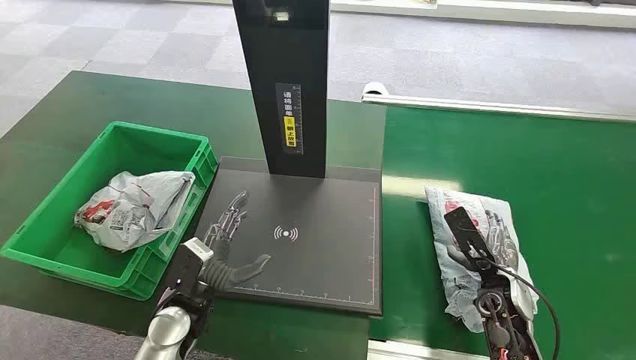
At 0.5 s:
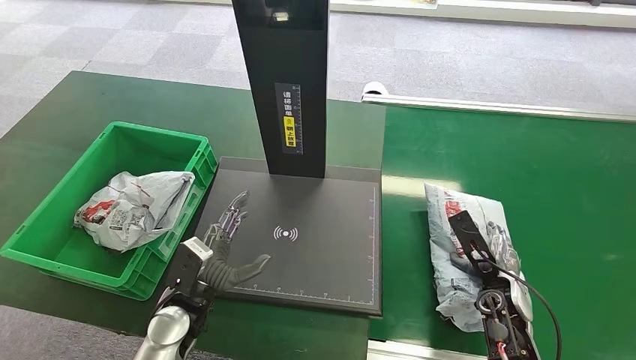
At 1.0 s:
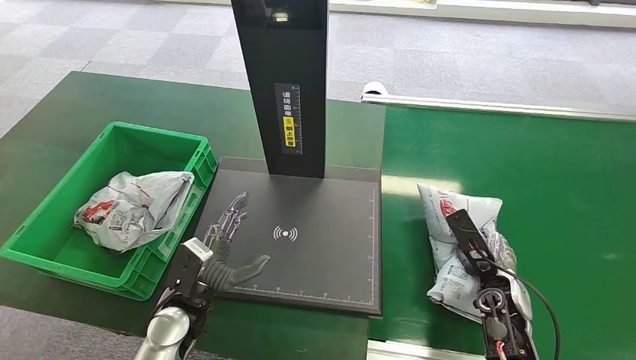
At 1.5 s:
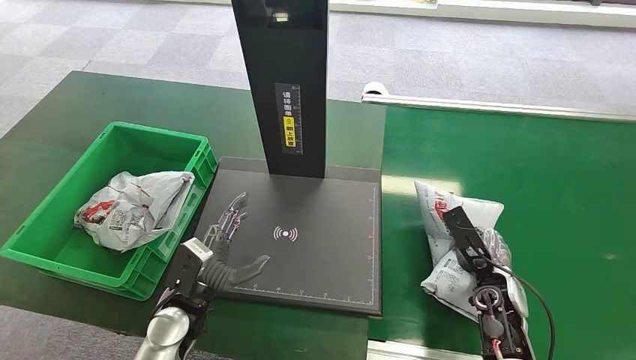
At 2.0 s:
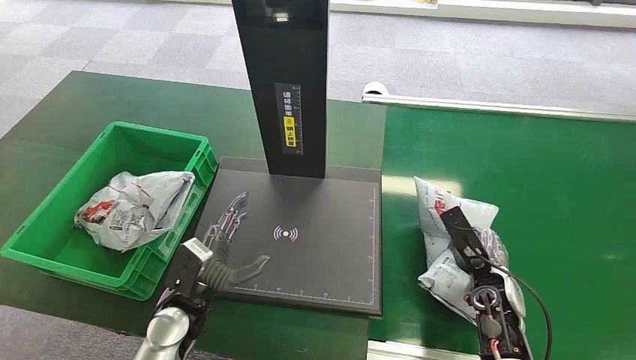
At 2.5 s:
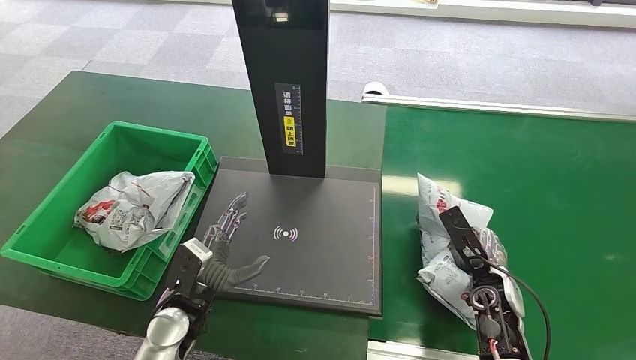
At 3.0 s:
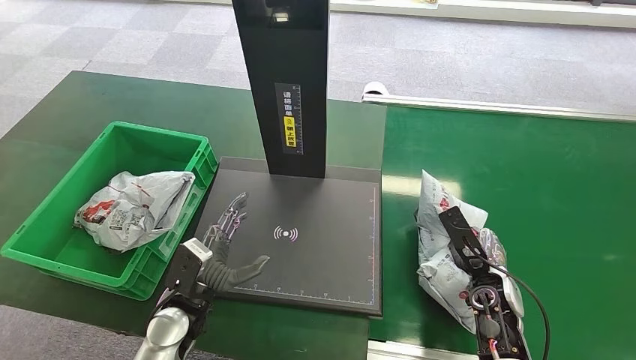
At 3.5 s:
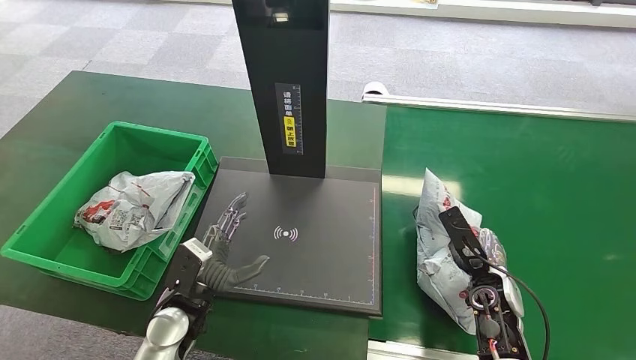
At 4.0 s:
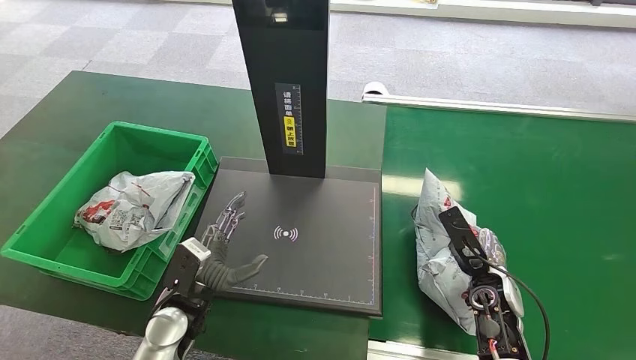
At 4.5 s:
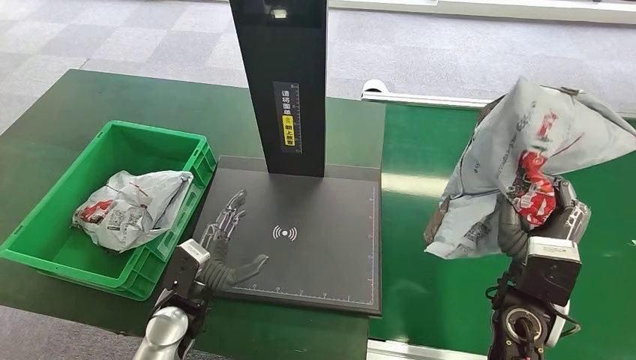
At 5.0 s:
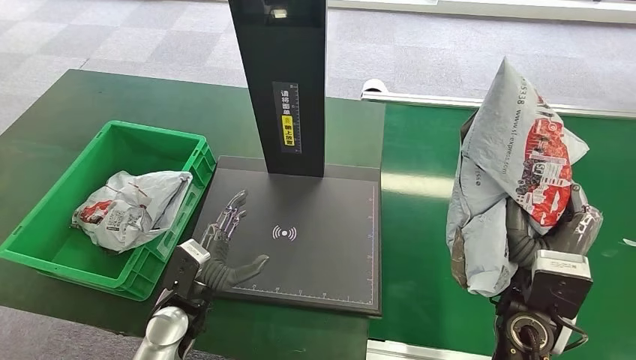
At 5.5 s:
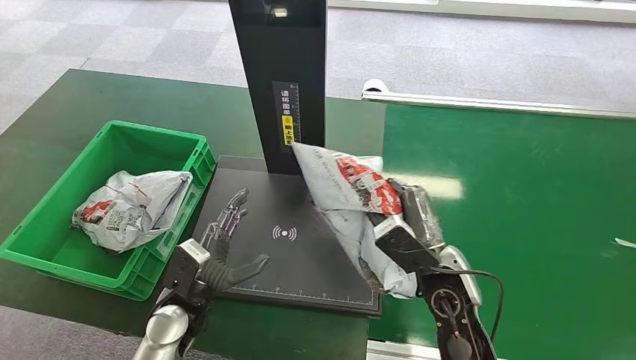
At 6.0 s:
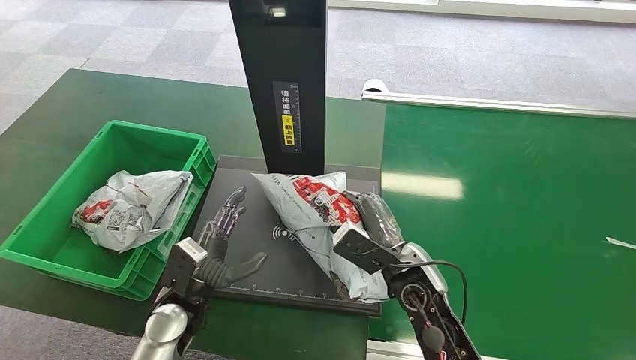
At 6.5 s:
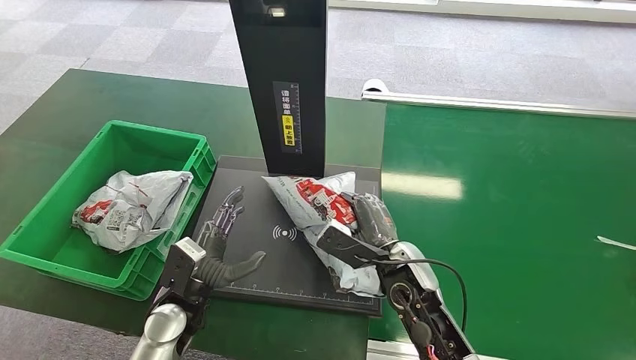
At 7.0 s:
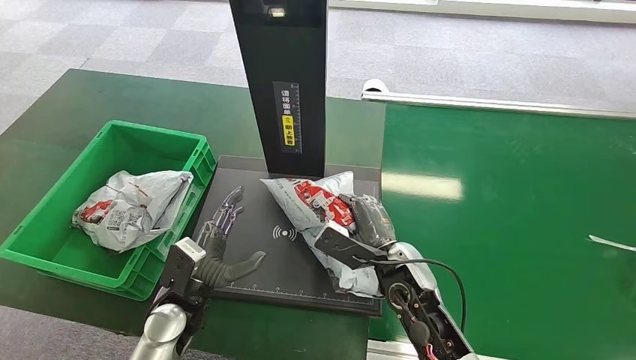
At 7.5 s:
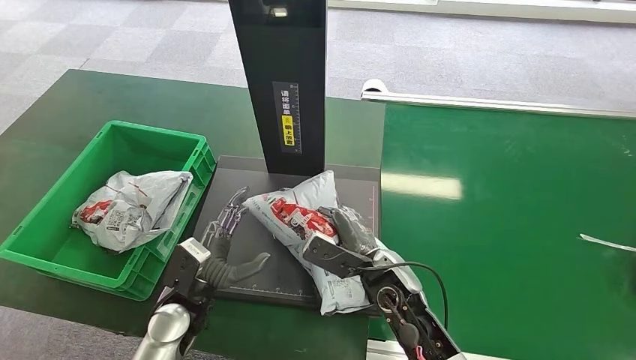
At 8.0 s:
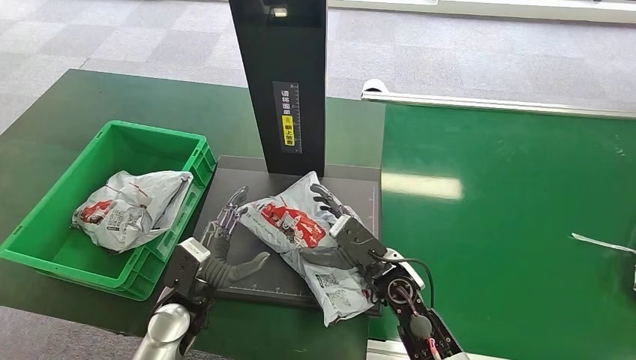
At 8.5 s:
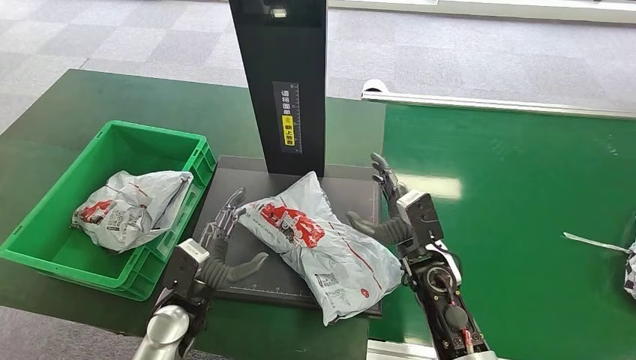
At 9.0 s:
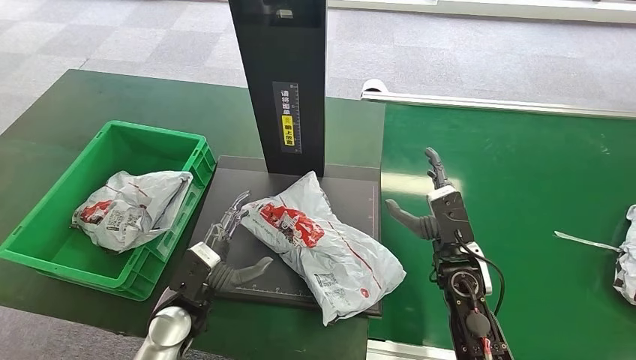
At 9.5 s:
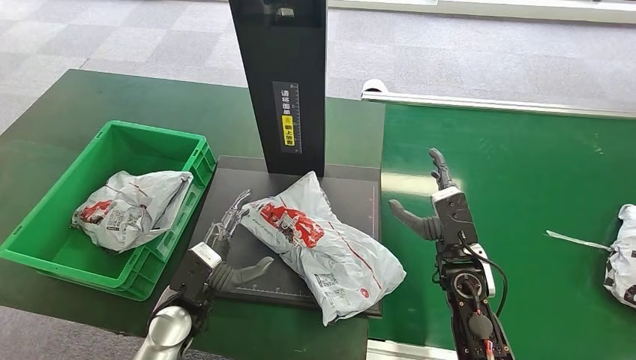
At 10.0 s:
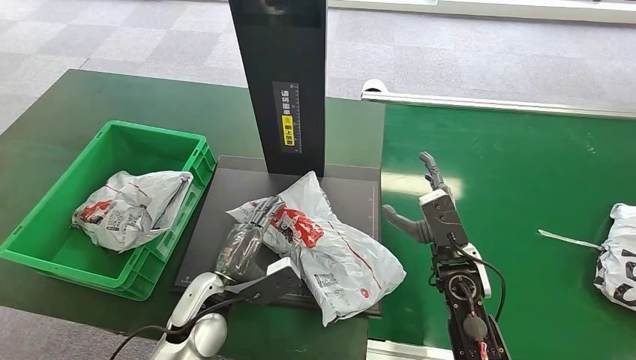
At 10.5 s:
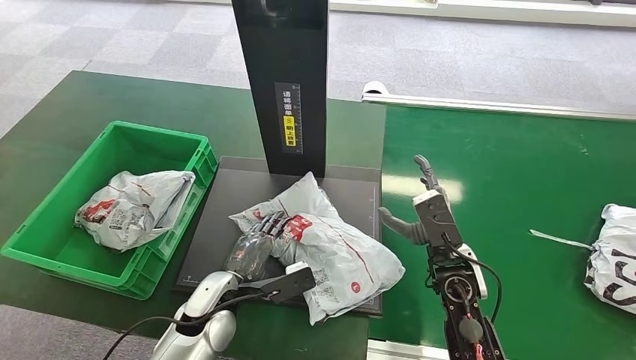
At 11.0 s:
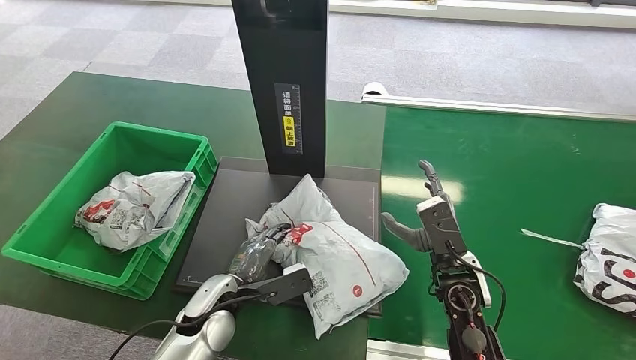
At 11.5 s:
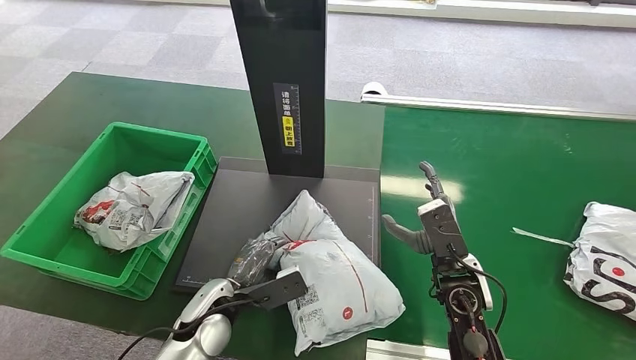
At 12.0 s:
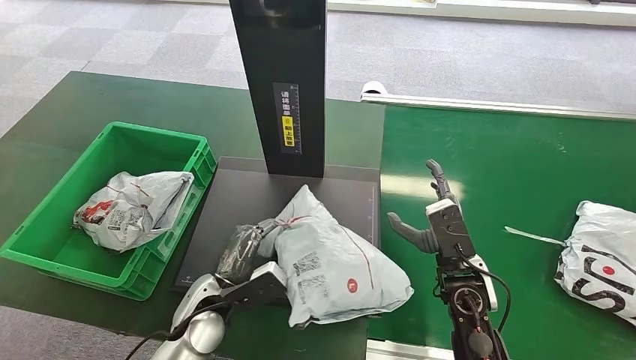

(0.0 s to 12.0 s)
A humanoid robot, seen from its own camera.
Task of the whole recording: Weigh the package on the weighing device and place it in the left basket.
Step, 0.0 s - 5.0 s: Pick up the package from the conveyor belt.
Step, 5.5 s - 8.0 s: Place the package onto the inbound machine.
2.0 s - 4.0 s: The two hands keep their place.
8.0 s - 10.0 s: The right hand goes roughly 10 cm to the right.

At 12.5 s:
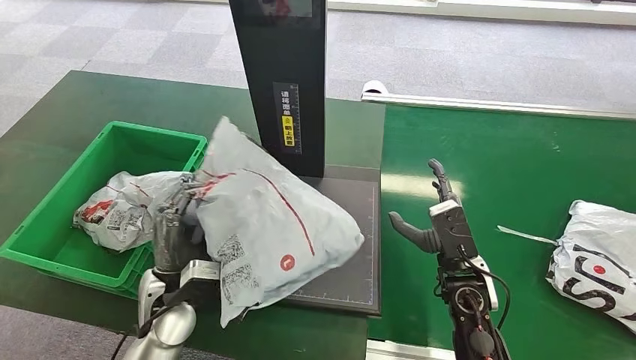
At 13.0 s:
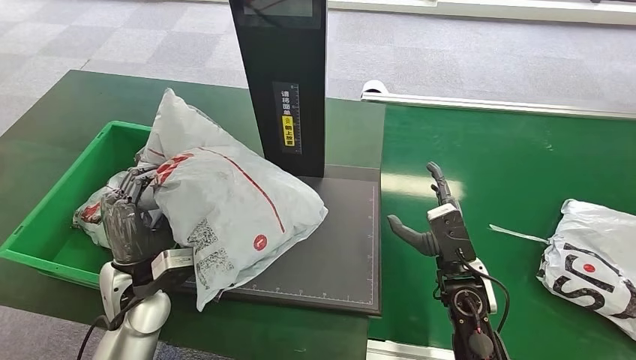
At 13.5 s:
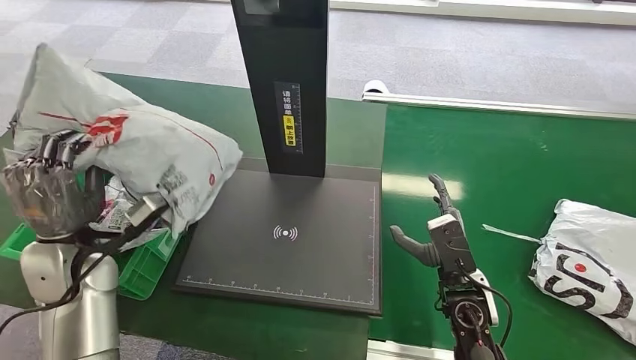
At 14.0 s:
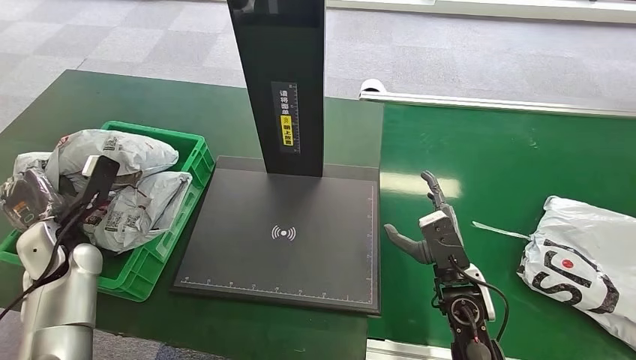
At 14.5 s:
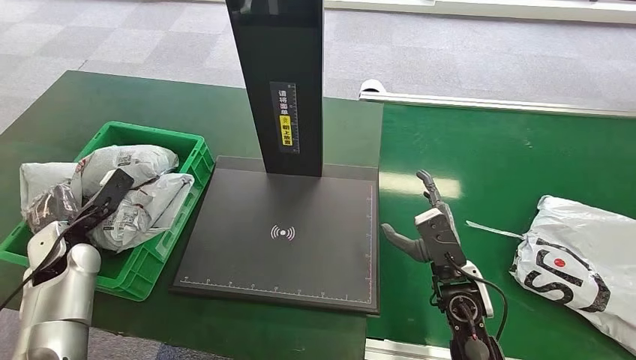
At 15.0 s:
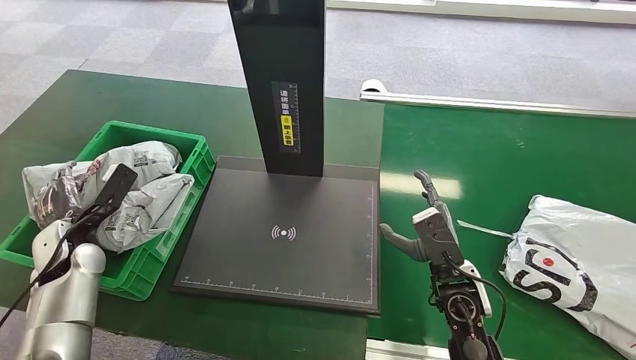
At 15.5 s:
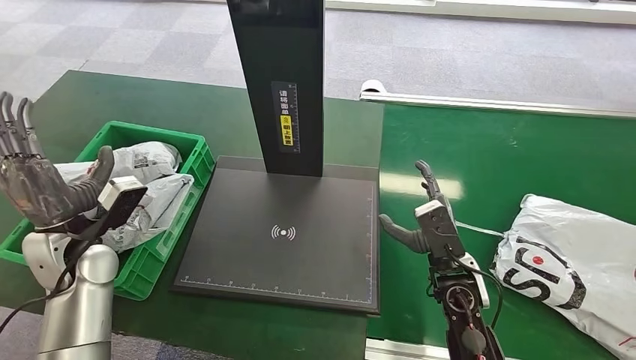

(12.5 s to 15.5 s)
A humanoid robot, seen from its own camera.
Task of the whole recording: Weigh the package on the weighing device and place it in the left basket.
Step, 13.0 s - 15.5 s: Place the package into the parcel locker.
14.0 s - 15.5 s: The left hand travels to the right by approximately 5 cm.
